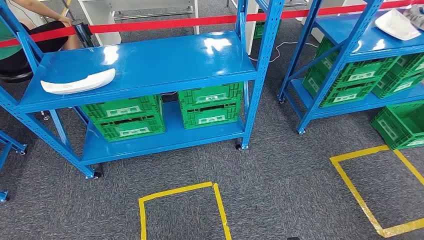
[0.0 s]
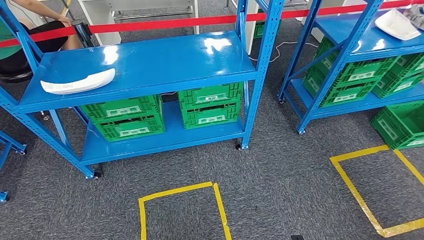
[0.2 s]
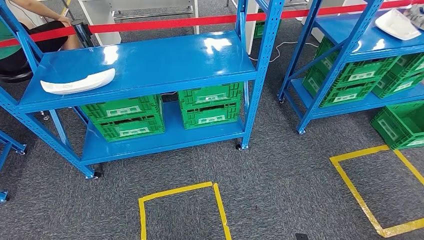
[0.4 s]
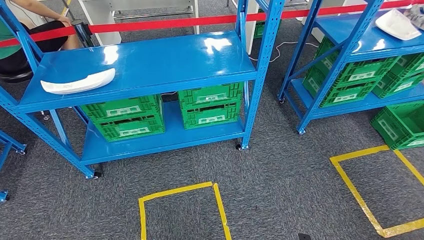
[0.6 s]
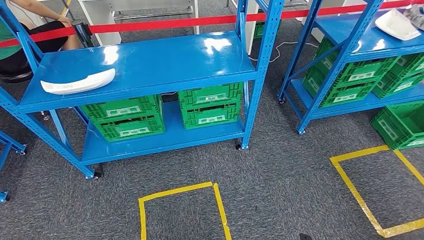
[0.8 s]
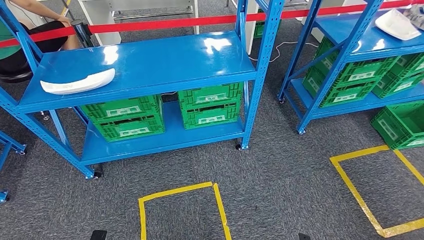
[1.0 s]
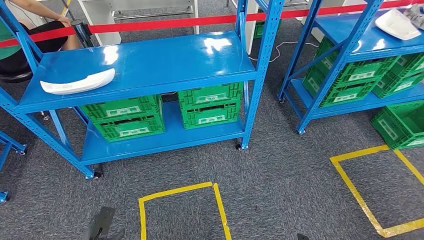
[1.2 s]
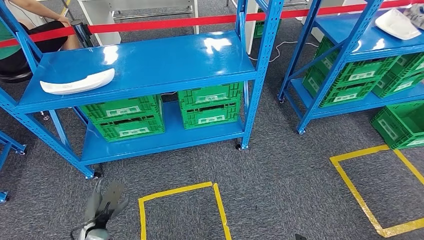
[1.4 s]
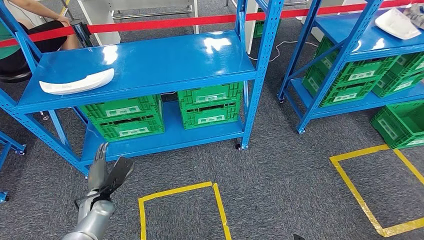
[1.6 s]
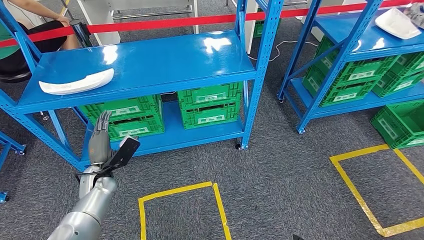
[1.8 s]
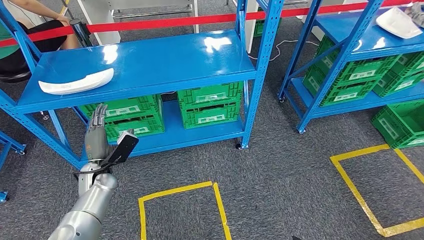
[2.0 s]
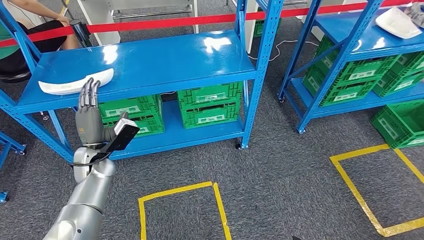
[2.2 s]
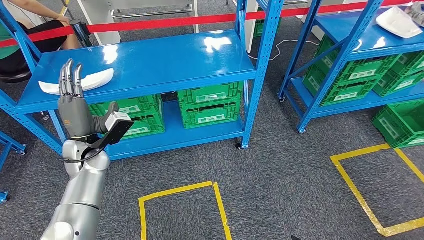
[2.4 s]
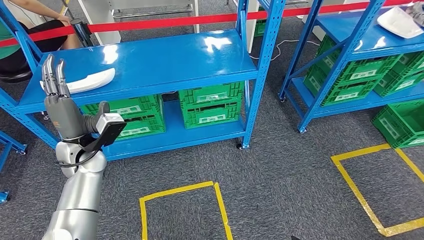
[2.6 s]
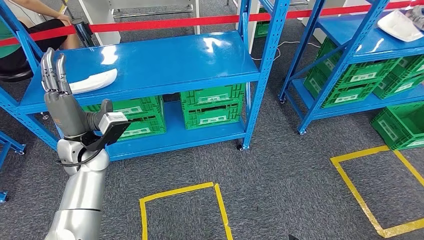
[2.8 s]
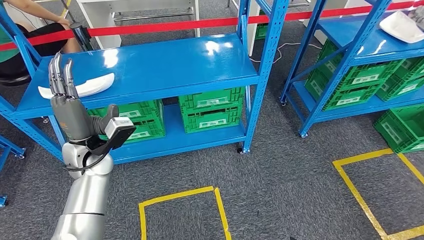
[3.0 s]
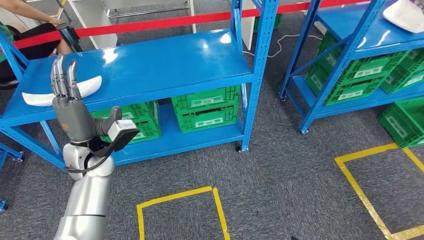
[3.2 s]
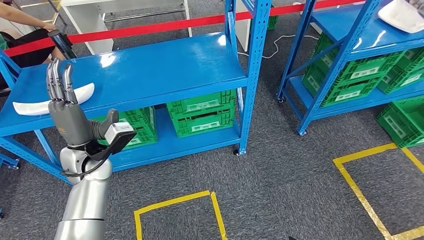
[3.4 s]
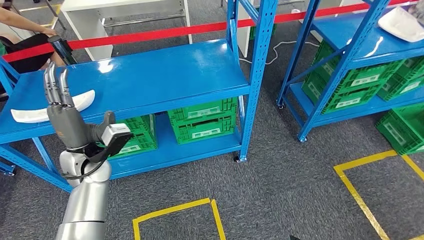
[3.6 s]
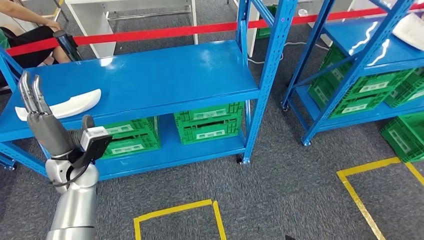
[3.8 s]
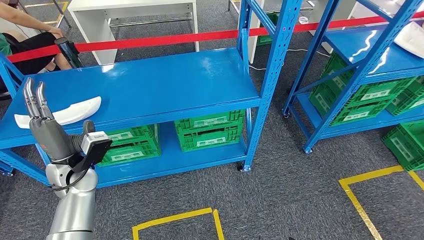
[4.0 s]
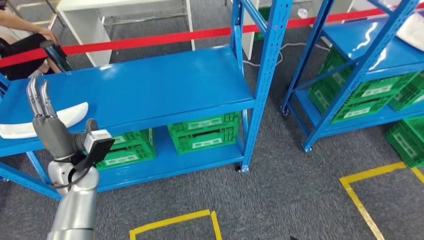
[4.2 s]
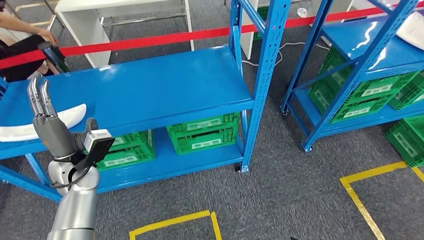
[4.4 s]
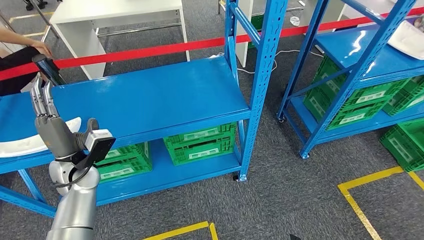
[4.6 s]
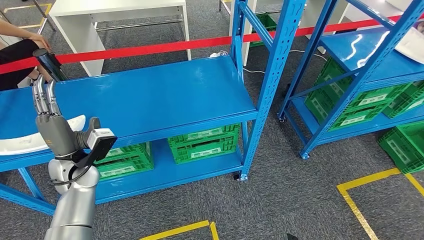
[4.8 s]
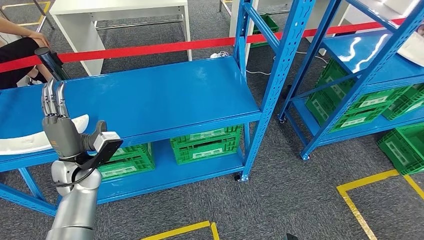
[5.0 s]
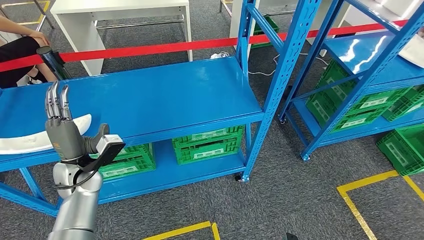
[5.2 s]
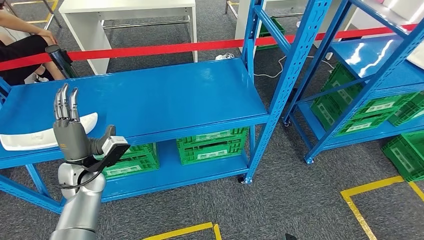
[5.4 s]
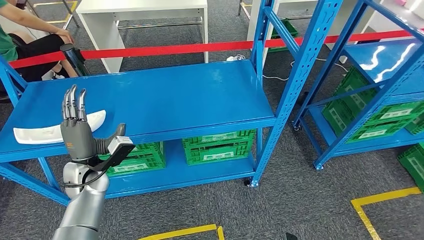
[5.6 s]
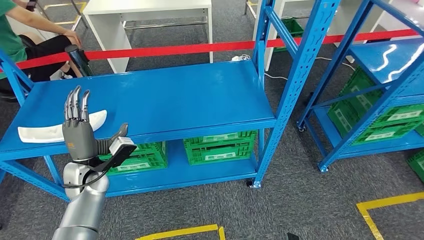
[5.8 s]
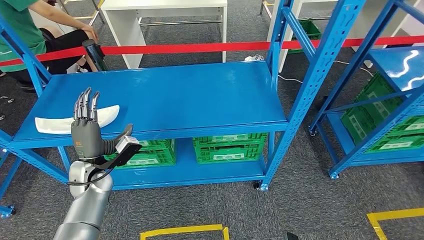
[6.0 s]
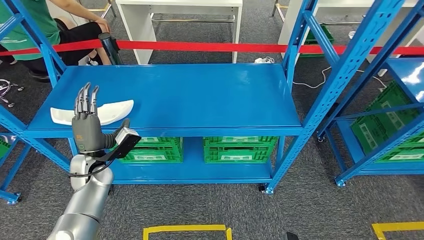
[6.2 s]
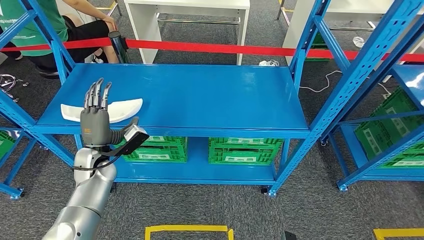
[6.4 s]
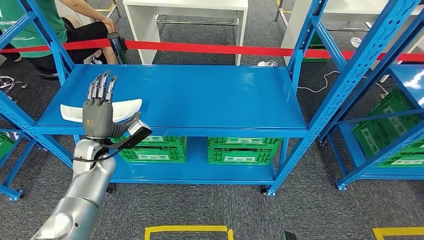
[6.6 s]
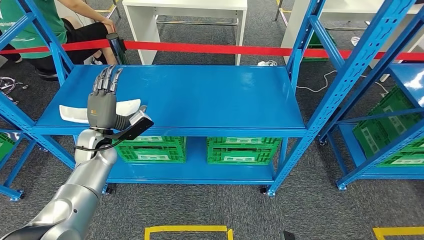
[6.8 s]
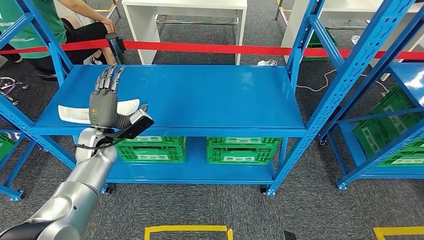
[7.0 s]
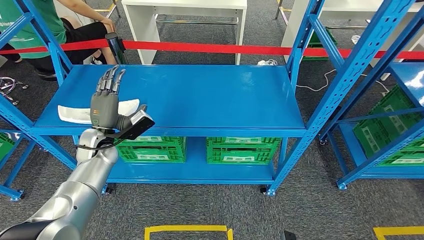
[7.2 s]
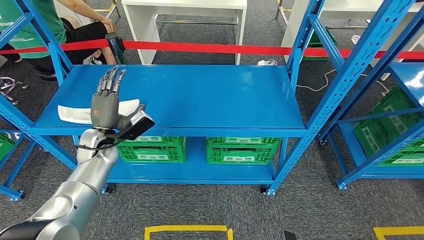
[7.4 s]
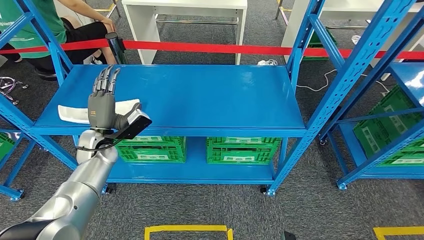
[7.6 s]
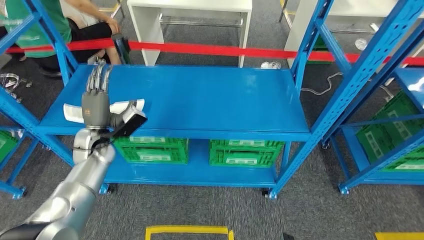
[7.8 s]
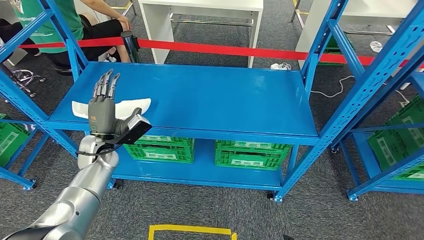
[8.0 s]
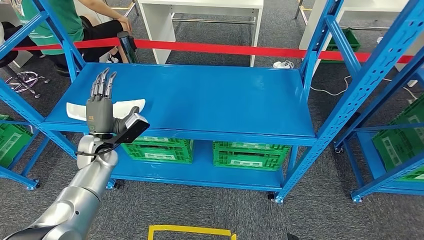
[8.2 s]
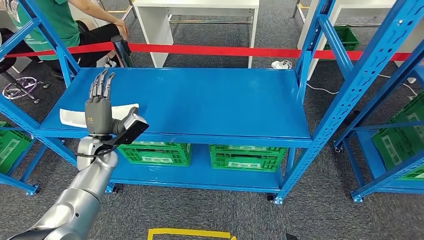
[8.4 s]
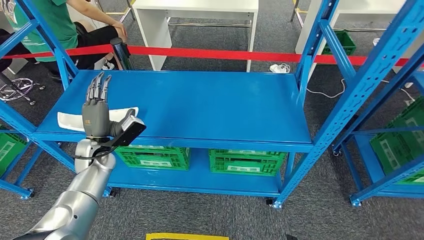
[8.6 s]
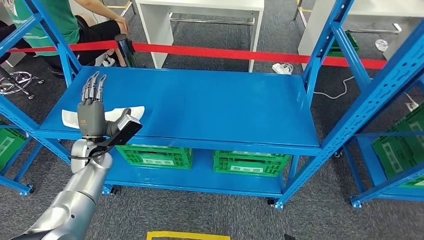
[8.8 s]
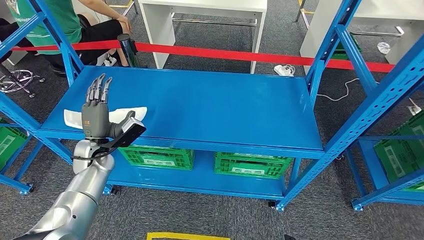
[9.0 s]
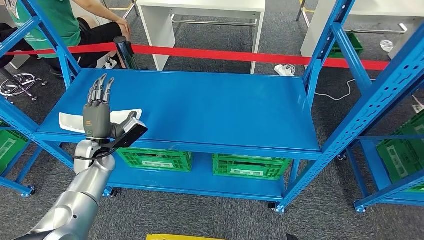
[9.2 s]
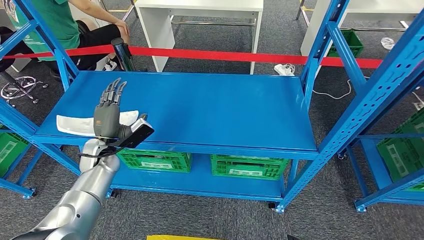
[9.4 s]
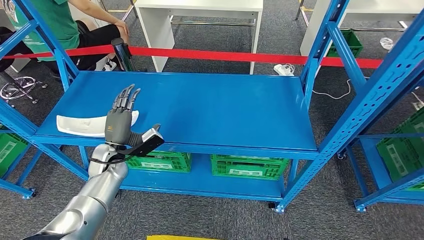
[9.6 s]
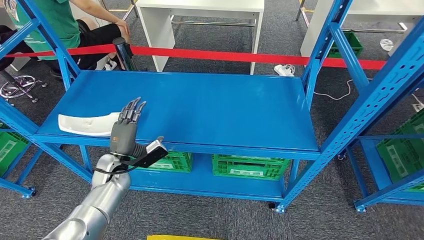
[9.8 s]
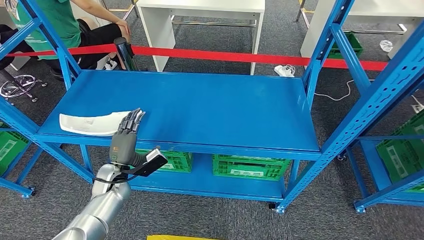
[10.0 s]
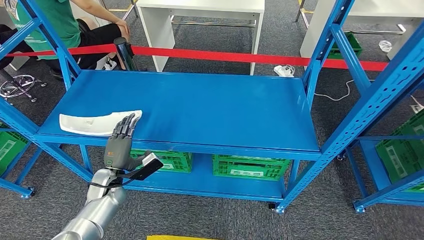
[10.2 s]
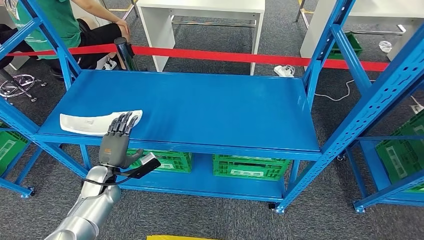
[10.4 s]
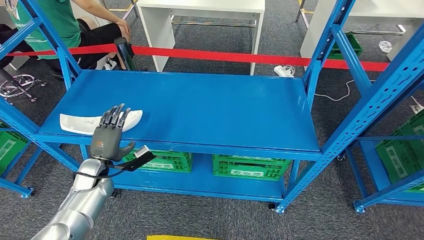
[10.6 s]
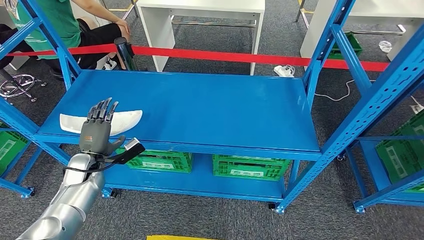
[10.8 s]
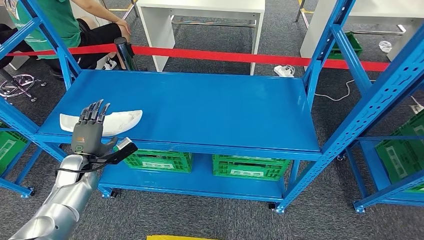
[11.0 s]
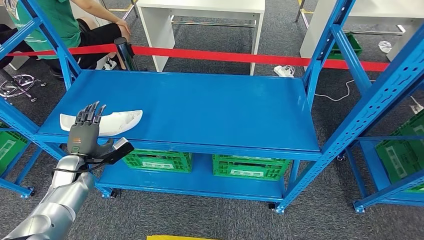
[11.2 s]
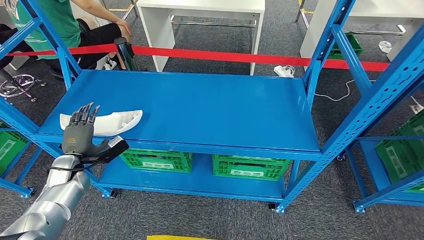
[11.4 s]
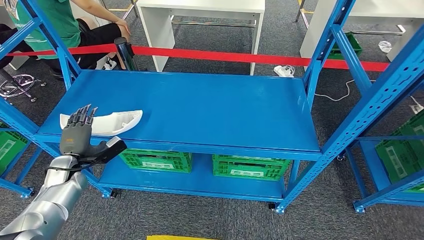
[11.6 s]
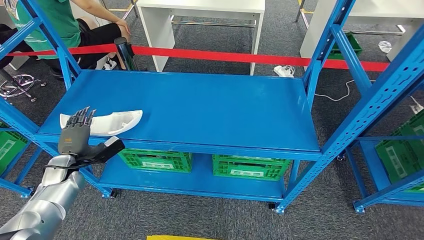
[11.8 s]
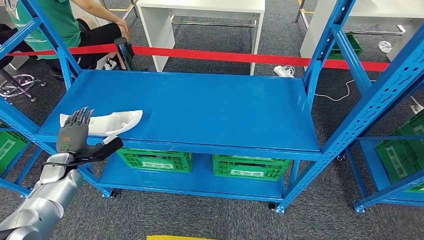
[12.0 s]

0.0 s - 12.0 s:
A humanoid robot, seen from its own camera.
10.4 s - 12.0 s: The left hand heads to the left, covering about 10 cm.

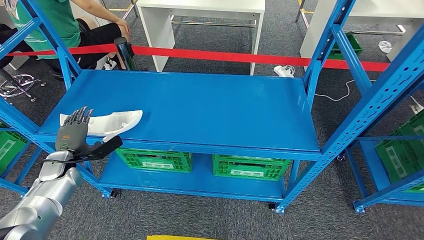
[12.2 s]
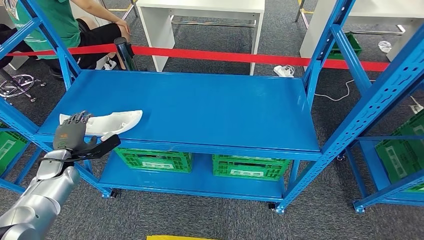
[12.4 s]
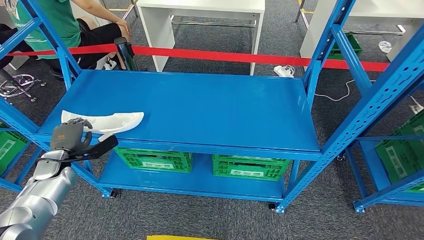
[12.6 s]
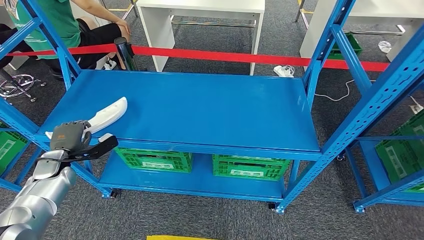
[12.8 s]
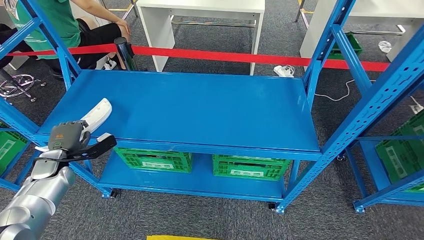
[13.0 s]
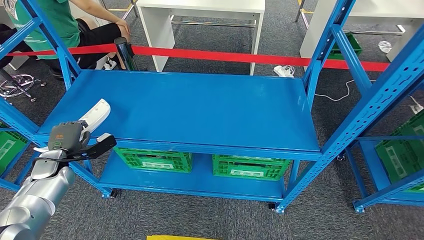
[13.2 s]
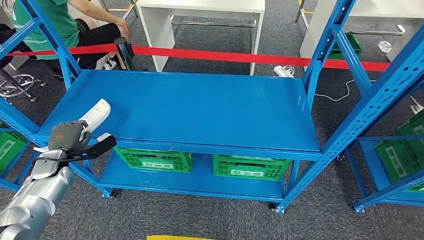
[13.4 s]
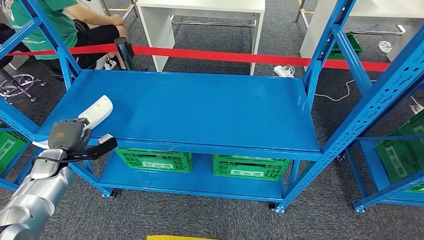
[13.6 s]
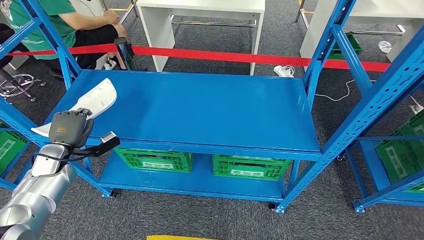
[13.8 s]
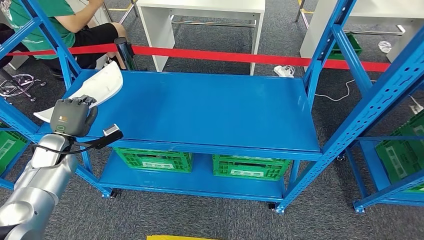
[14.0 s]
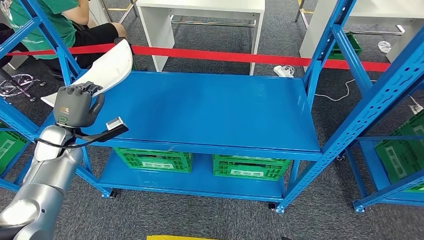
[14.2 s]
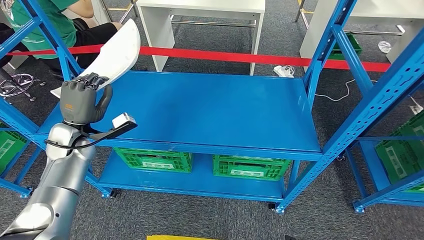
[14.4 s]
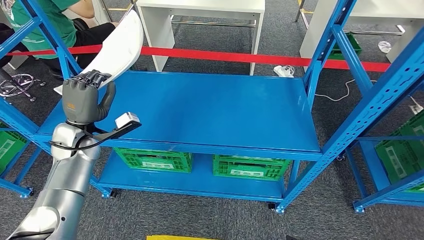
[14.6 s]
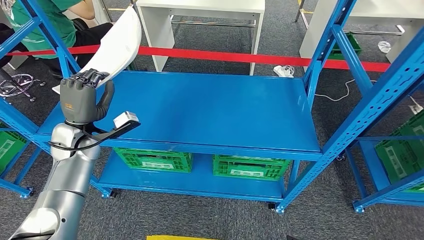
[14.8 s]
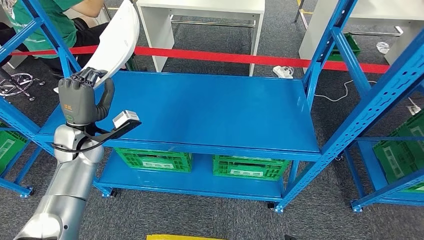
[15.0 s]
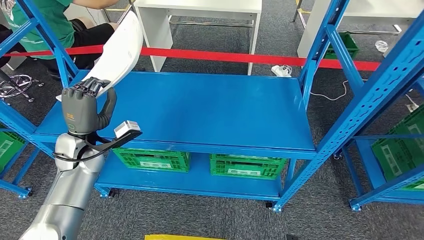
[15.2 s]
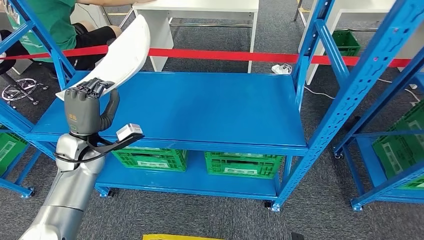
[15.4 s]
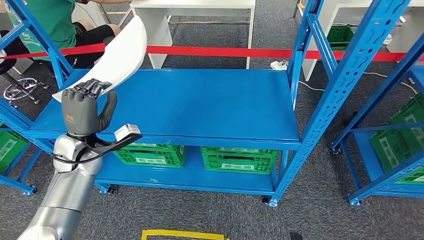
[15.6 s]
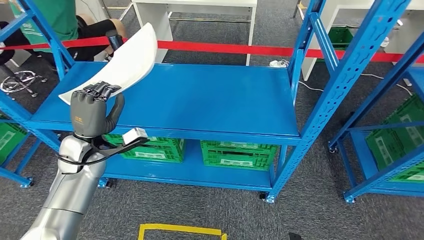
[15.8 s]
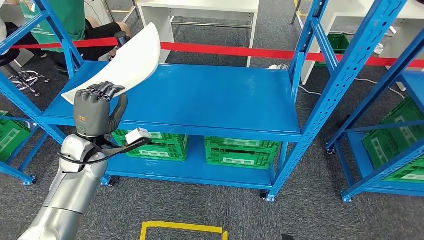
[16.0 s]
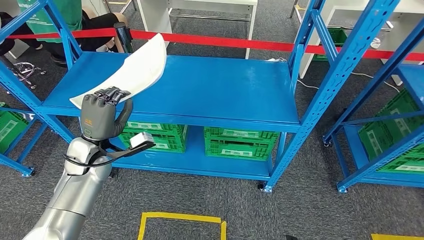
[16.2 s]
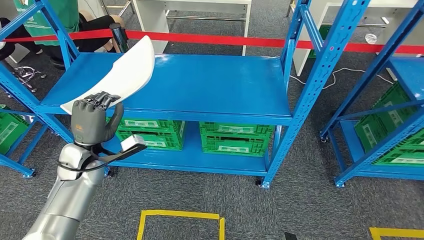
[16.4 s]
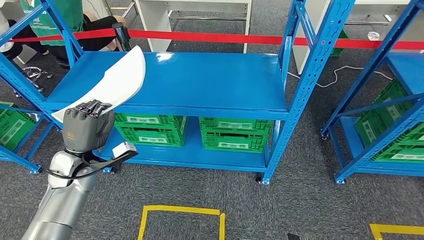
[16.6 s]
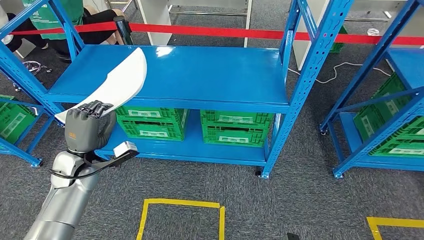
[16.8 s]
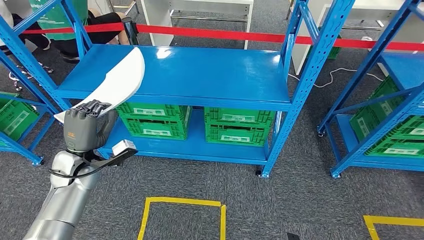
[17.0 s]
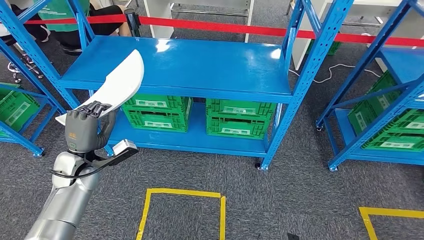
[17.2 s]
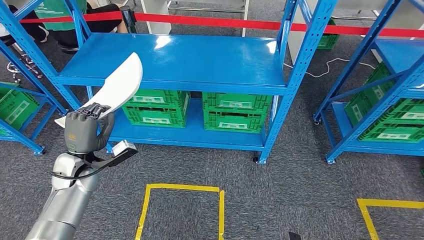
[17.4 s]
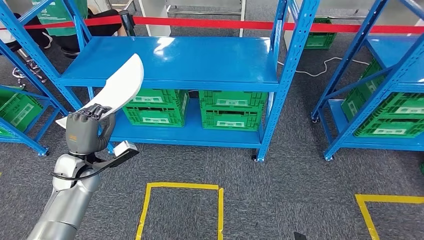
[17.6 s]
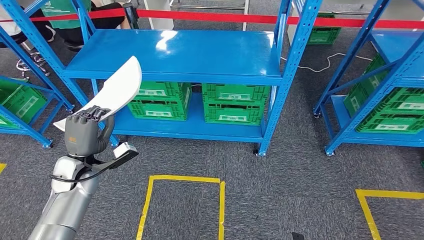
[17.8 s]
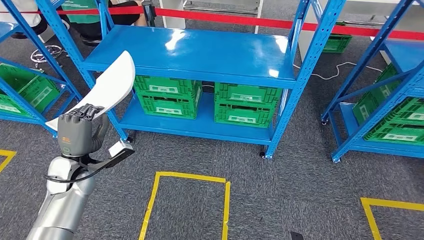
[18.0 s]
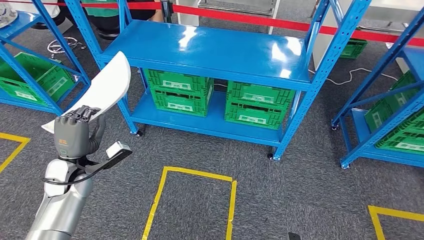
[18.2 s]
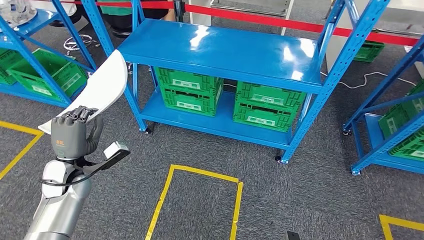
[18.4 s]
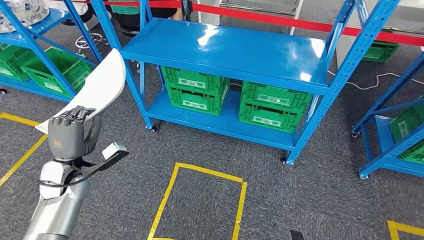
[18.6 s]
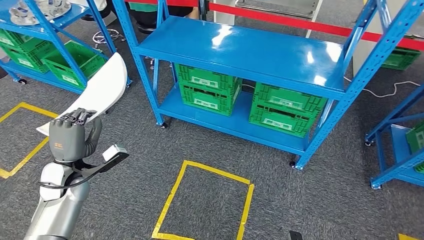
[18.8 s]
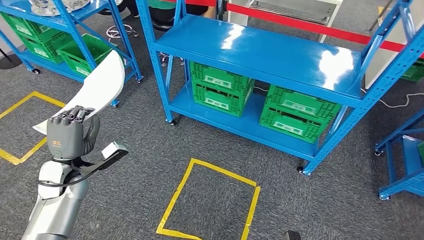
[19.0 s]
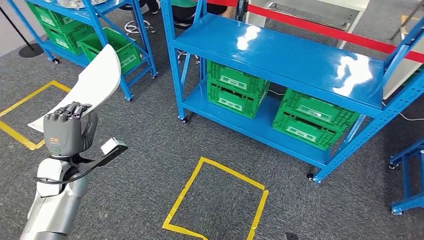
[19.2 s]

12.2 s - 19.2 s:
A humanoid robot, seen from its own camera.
Step, 12.2 s - 14.2 s: Pick up the small component from the shelf.
12.2 s - 13.6 s: The hands make only small movements.
13.6 s - 15.0 s: The left hand is displaced to the right and upward by some 15 cm.
